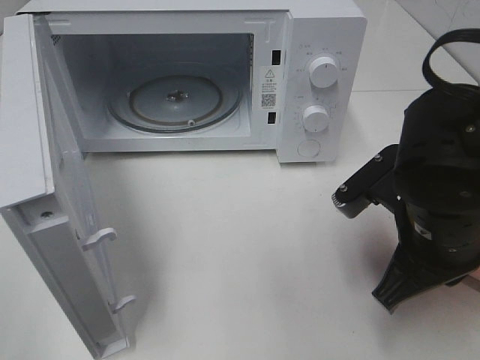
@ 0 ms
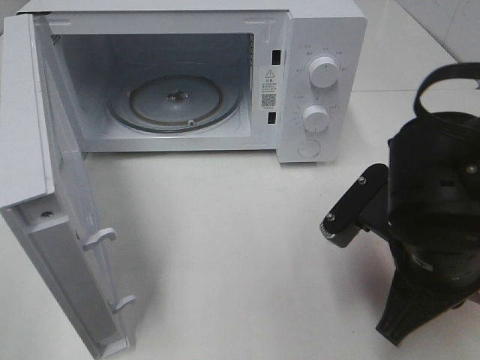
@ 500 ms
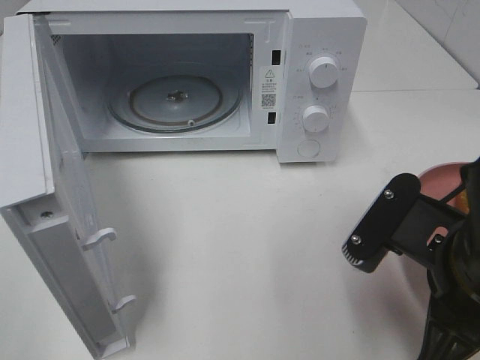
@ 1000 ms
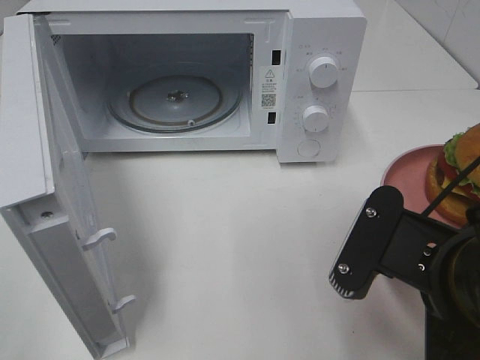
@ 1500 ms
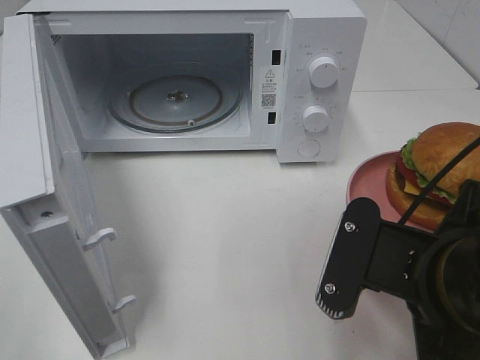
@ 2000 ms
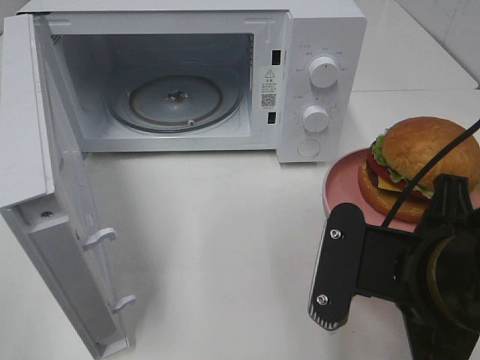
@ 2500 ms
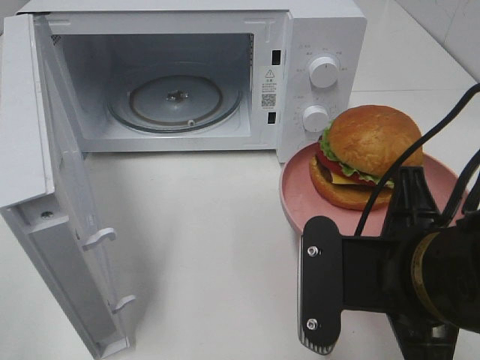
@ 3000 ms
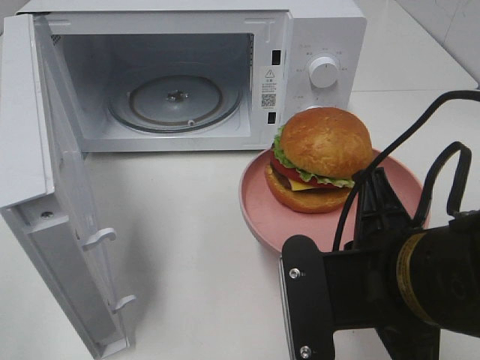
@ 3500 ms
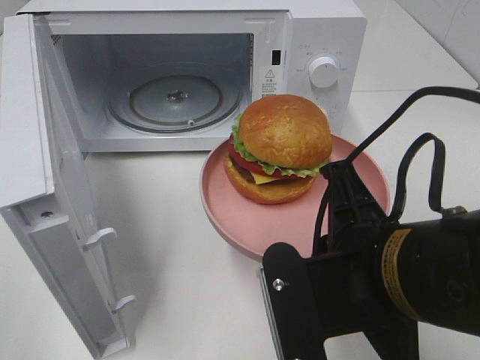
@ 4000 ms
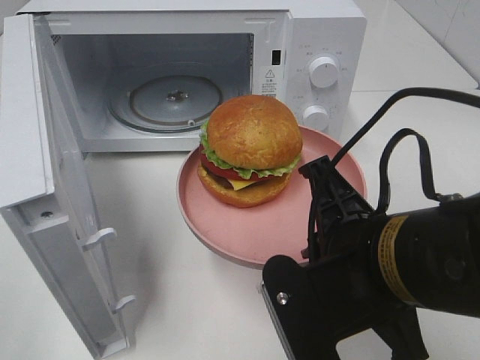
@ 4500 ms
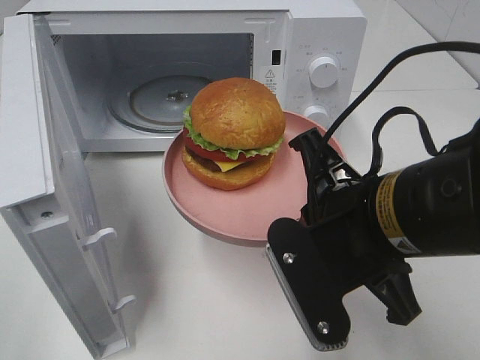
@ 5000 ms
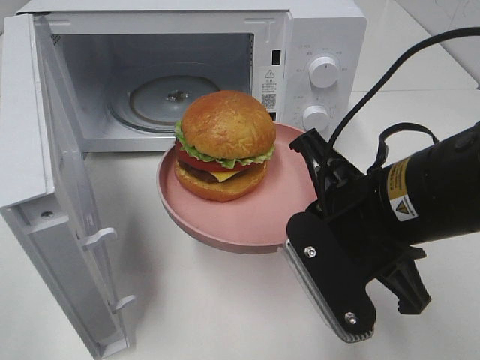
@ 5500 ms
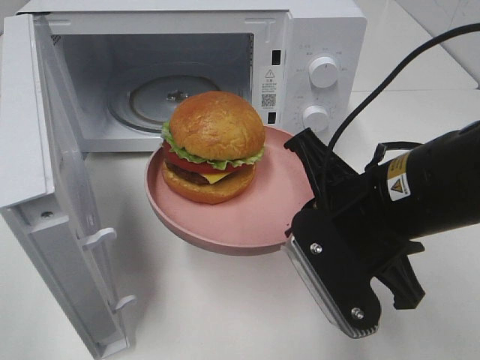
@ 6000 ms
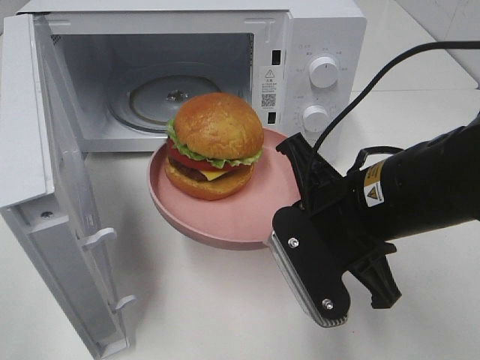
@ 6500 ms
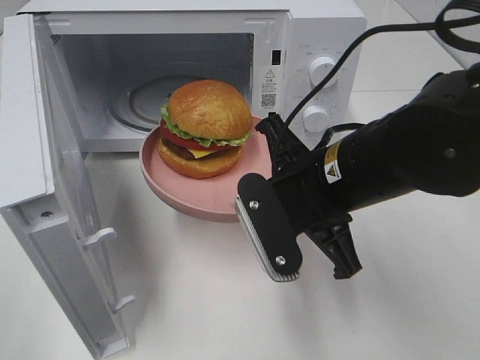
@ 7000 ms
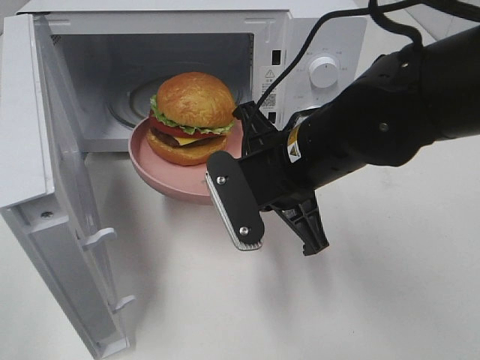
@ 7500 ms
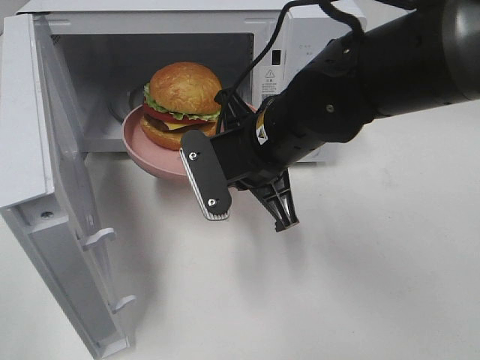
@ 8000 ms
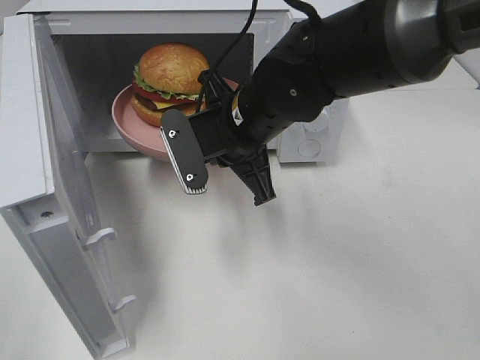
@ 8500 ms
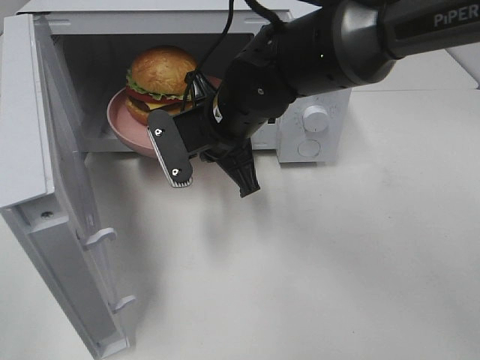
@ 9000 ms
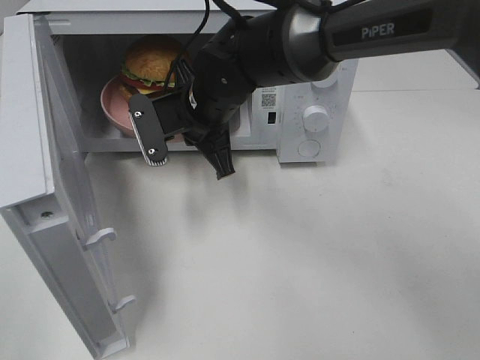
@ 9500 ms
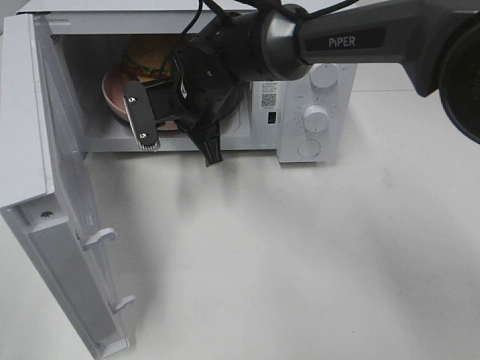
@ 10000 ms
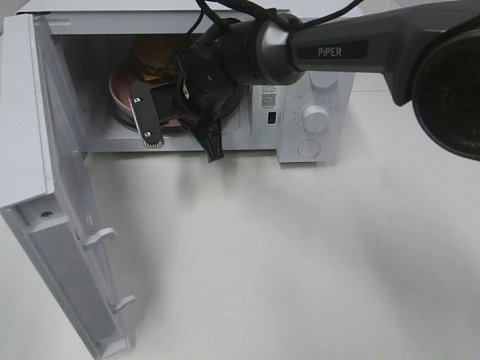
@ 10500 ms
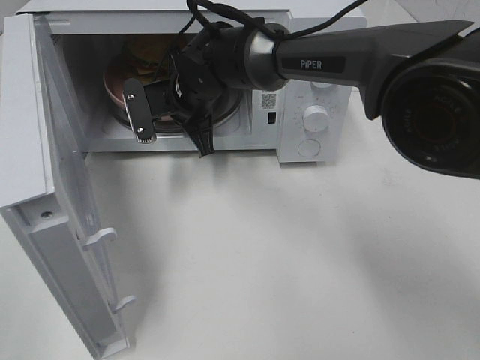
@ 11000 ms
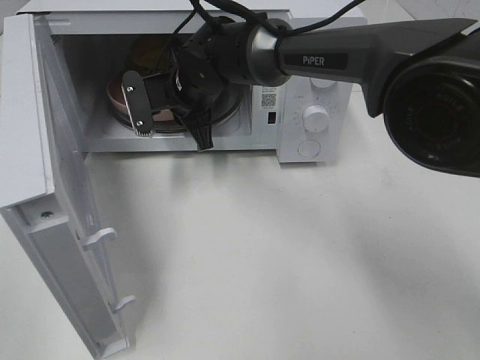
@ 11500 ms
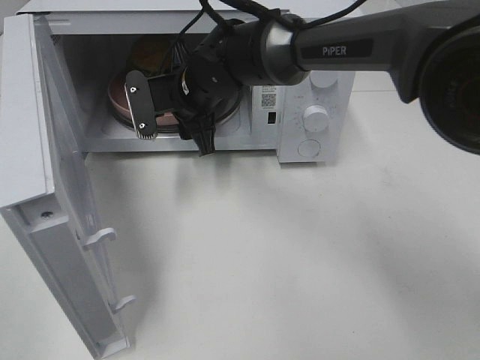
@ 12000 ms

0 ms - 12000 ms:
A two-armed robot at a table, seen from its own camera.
Task of the whole recording: Heat the burger.
Step, 0 ms - 11500 ms: Right hand: place the plate in the microwave.
0 ms - 2000 ms: The right gripper shifts roughly 10 cm backward.
4000 ms - 6000 ms: The right gripper goes approximately 5 cm forward.
6000 ms - 8000 ms: The right gripper moves forward and to the left, approximately 15 cm.
8000 ms - 10000 ms: The right gripper moves forward and to the left, approximately 15 cm.
10000 ms - 12000 ms: The right gripper opens.

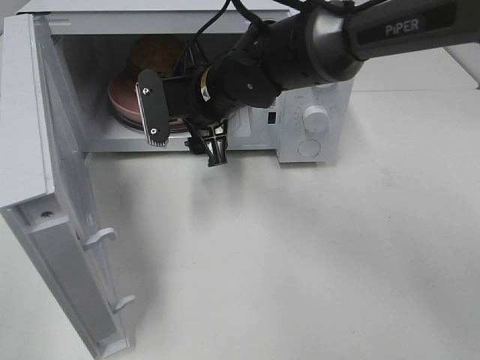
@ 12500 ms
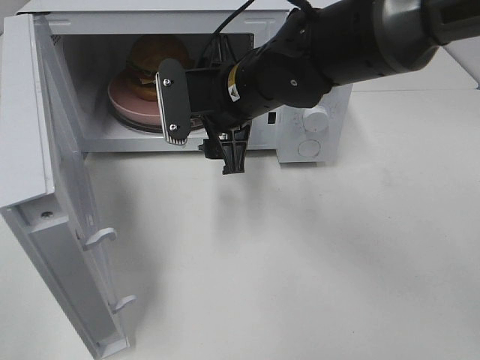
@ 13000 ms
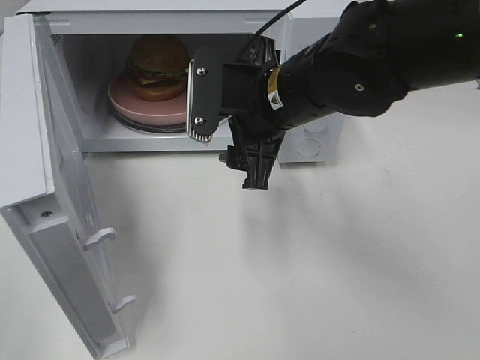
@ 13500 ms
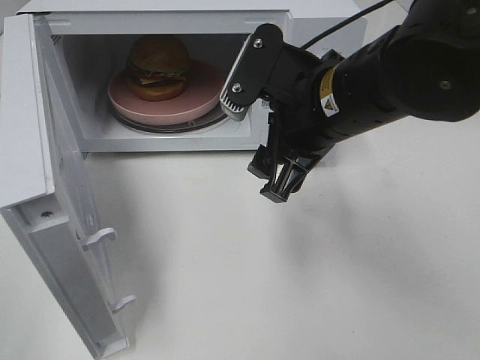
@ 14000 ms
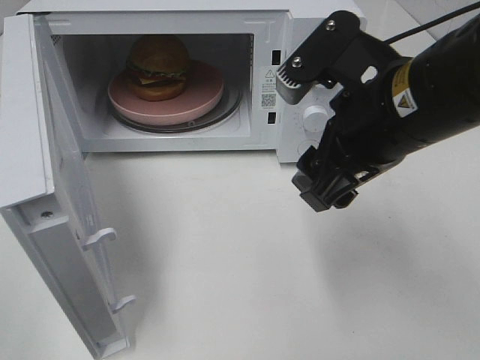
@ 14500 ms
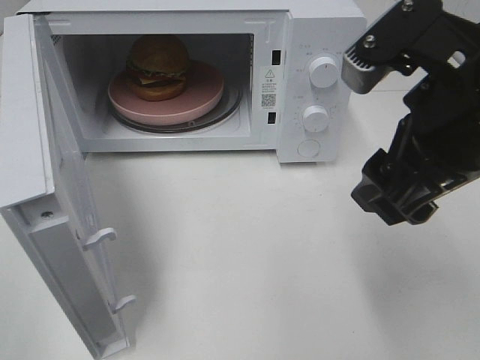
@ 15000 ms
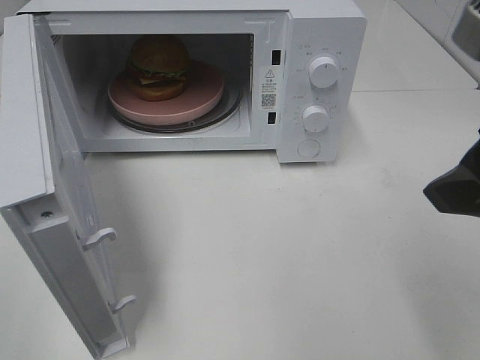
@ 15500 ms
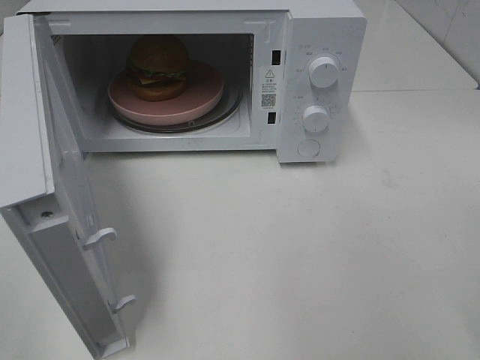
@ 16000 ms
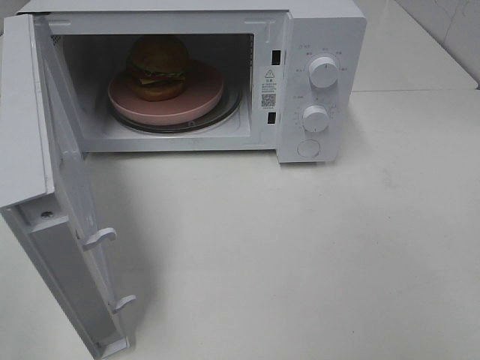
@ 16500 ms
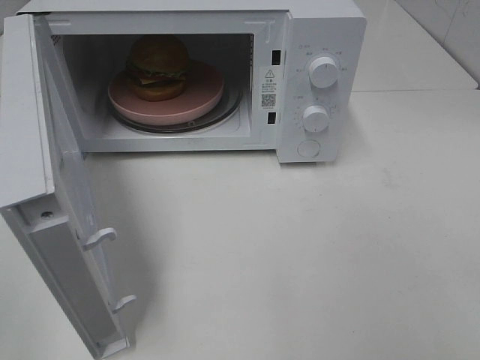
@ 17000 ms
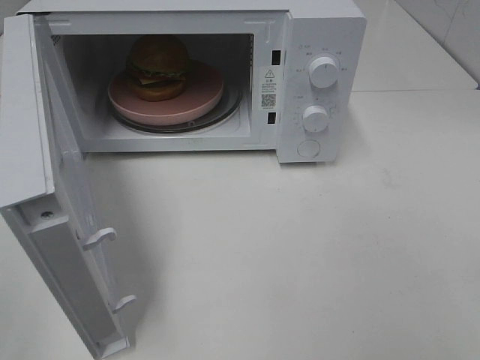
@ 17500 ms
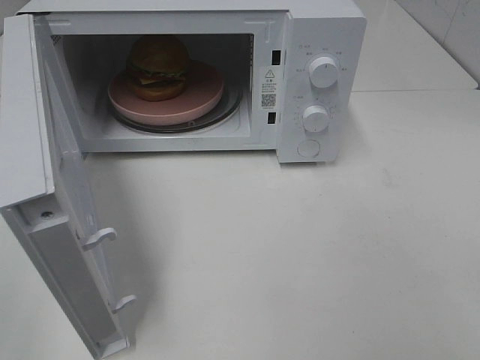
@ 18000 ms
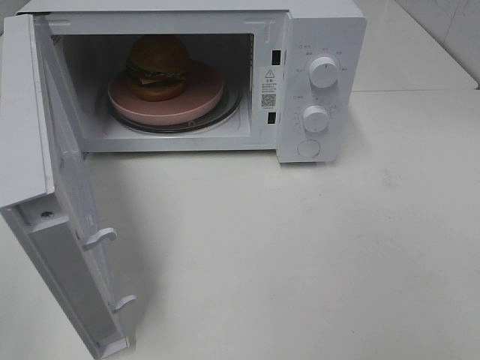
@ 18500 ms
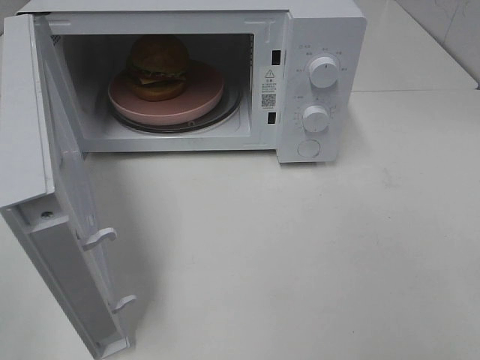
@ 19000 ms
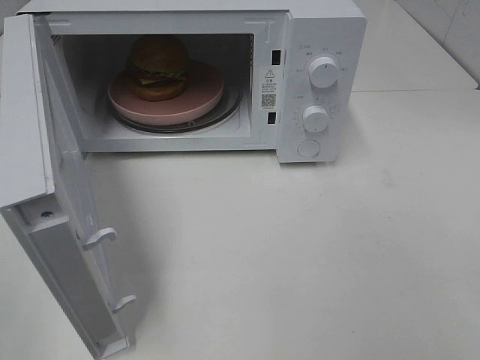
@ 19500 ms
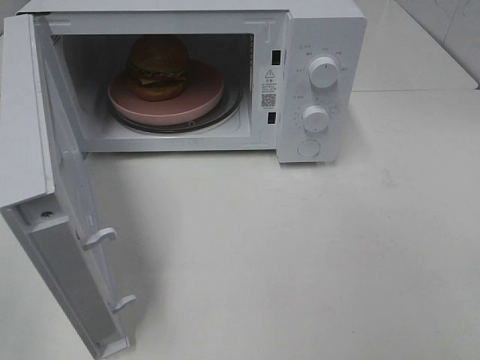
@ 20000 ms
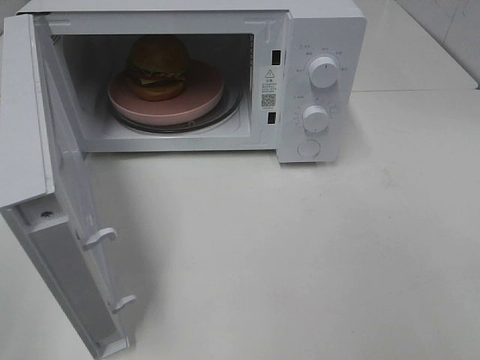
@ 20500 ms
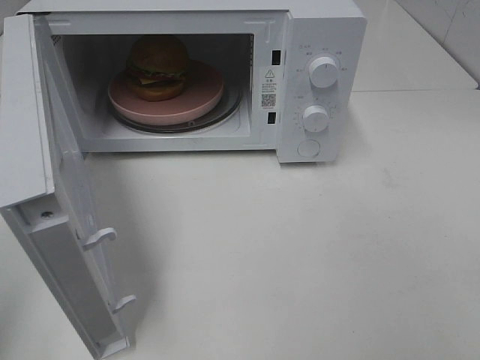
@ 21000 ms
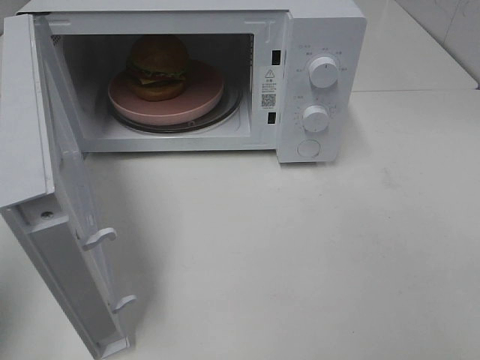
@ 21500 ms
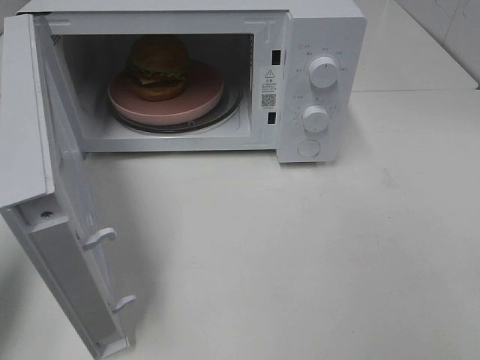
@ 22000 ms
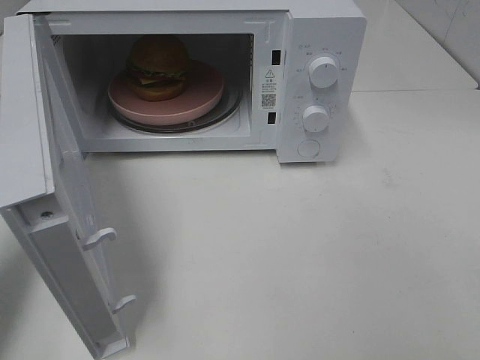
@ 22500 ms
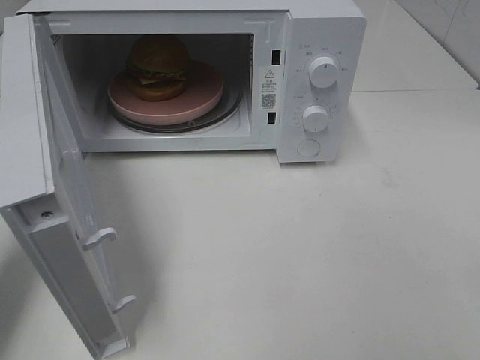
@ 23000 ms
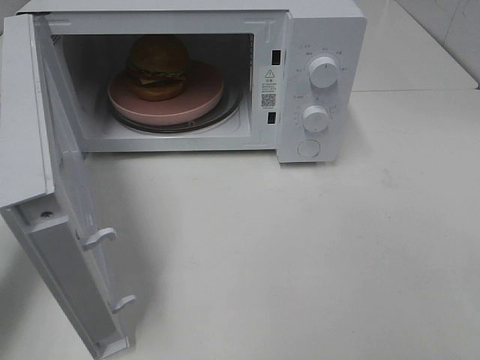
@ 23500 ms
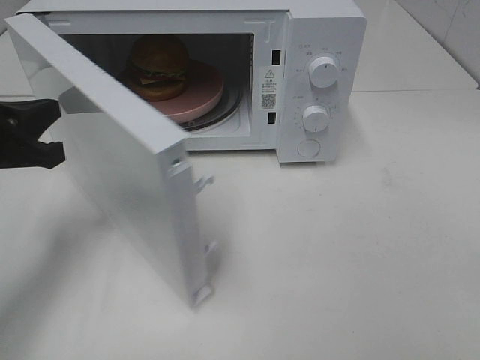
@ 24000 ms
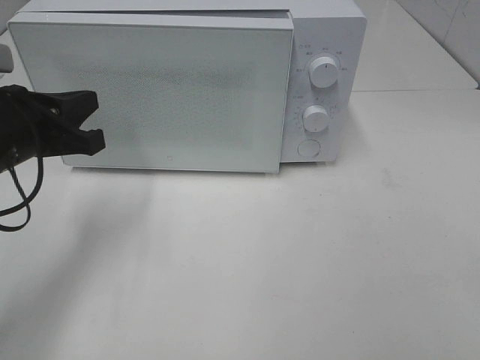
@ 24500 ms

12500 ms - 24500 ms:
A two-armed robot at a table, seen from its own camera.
Task of the whole recording: Heat the burger.
12500 ms - 14500 ms: The right gripper travels backward, to the right and upward by roughly 25 cm.
14500 ms - 16500 ms: The right gripper heads backward and to the right, covering roughly 20 cm.
20500 ms - 22500 ms: The left gripper is displaced forward by about 15 cm, and closes up.
22500 ms - 24500 ms: The left gripper shifts approximately 15 cm to the right, forward and downward.

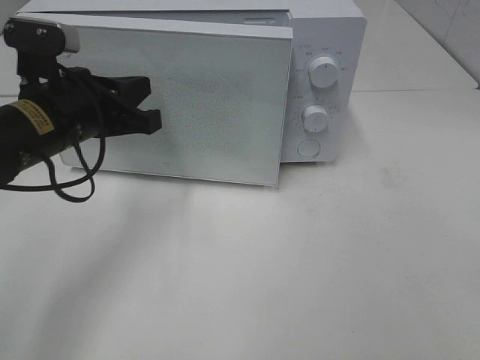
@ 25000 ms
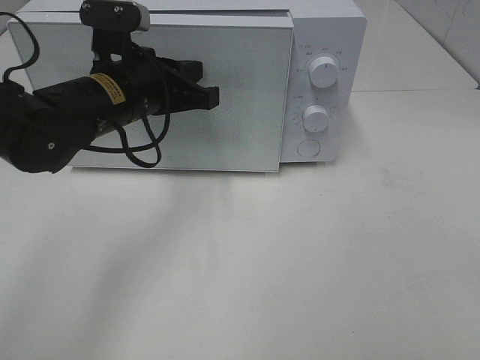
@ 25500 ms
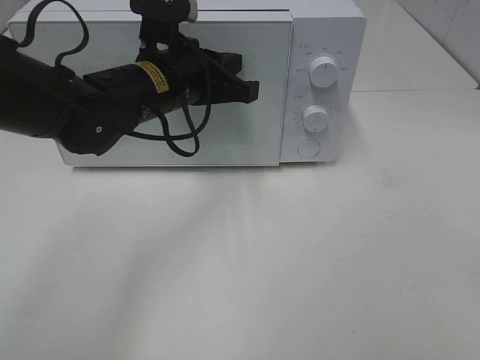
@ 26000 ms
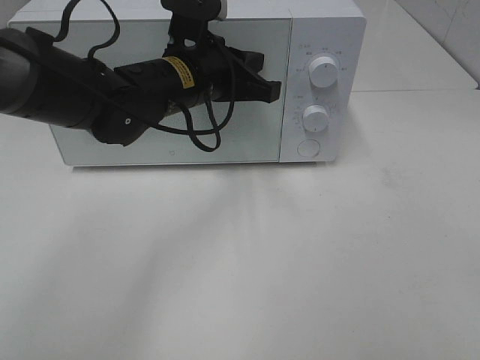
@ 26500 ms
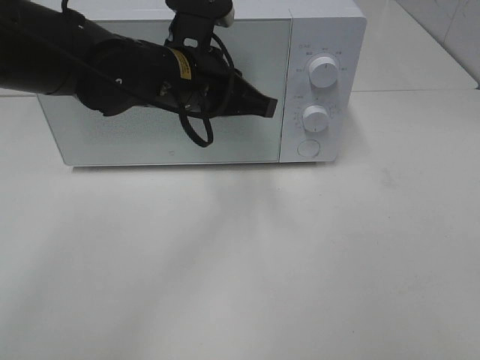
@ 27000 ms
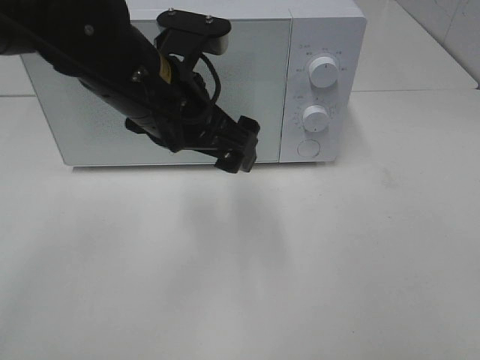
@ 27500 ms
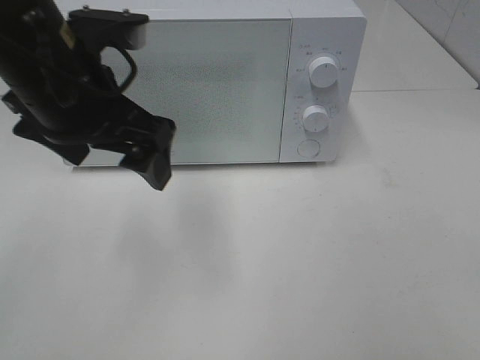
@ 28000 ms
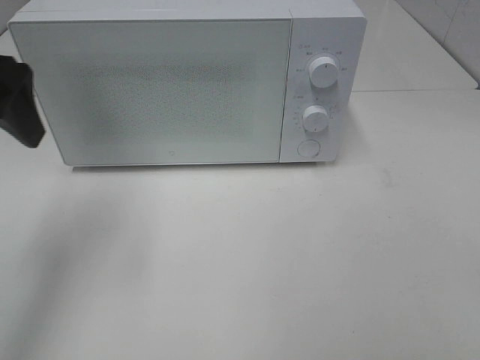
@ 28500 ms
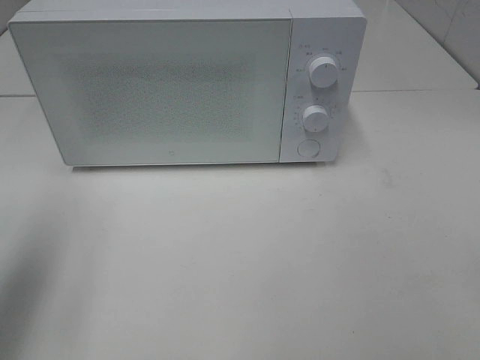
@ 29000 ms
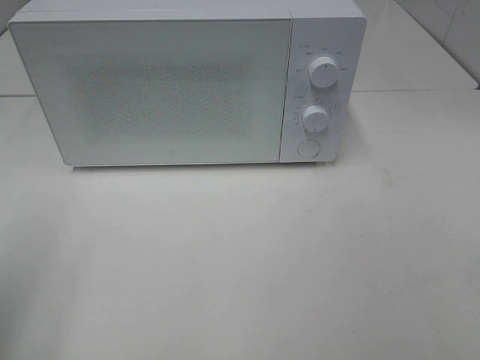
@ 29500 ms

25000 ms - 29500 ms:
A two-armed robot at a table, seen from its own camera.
Task of the whole recording: Heat the burger.
25000 ms - 27000 ms: The left gripper shifts approximately 10 cm to the right.
27000 ms - 29500 ms: The left gripper is displaced to the left and backward by about 35 cm, and opens up.
